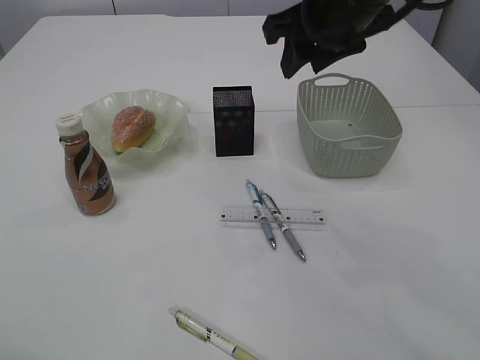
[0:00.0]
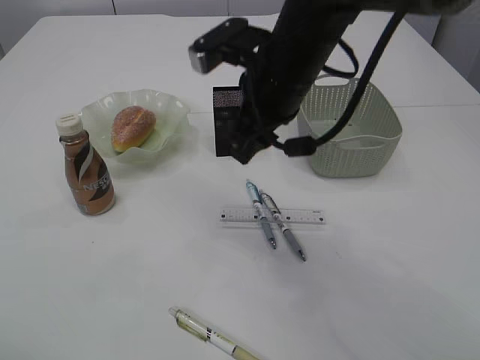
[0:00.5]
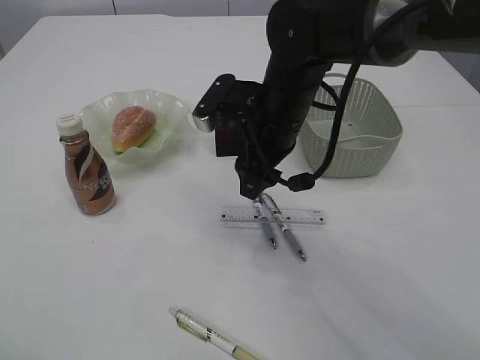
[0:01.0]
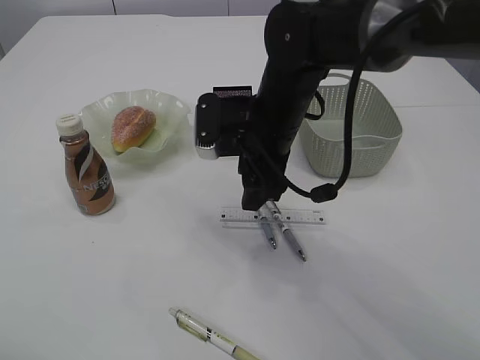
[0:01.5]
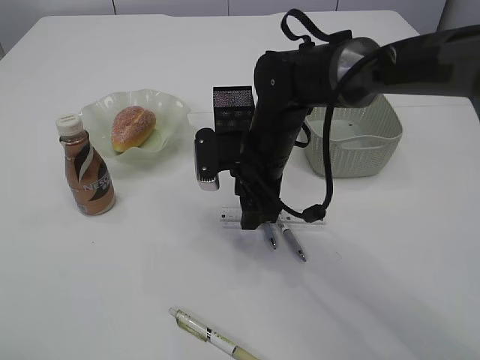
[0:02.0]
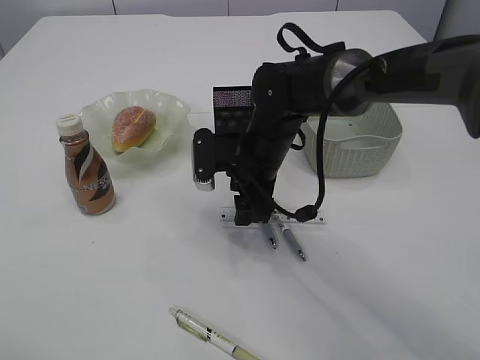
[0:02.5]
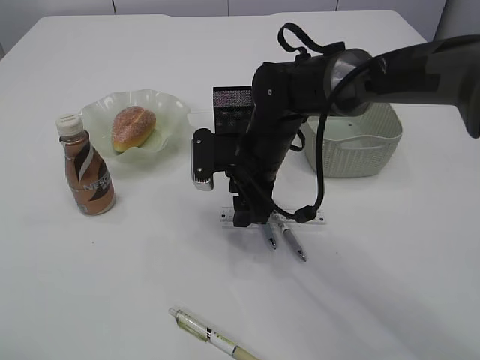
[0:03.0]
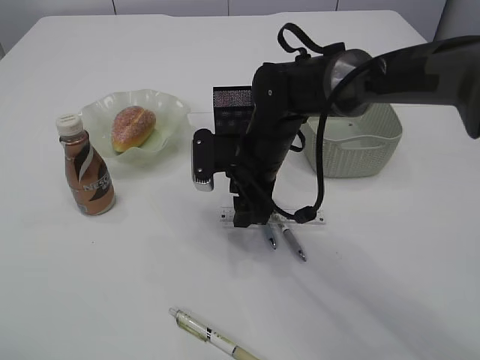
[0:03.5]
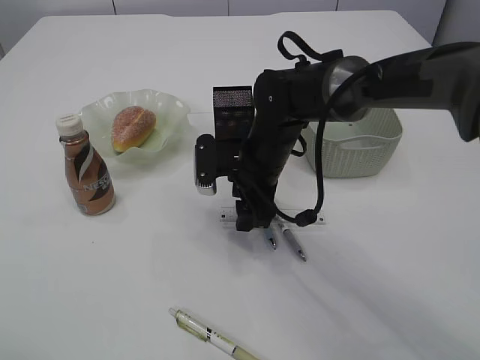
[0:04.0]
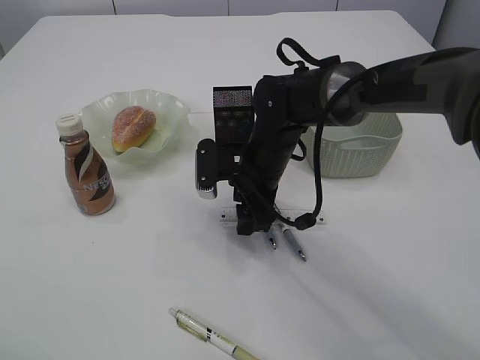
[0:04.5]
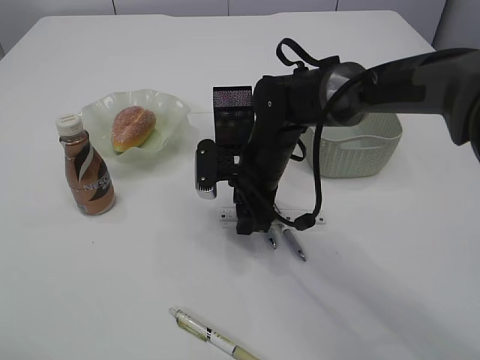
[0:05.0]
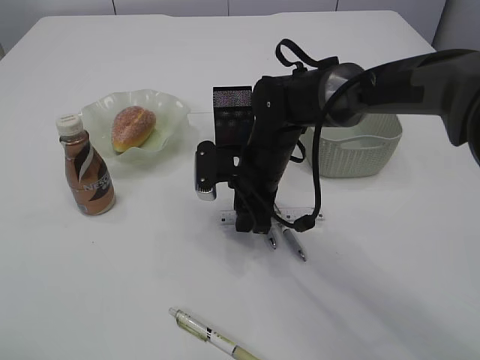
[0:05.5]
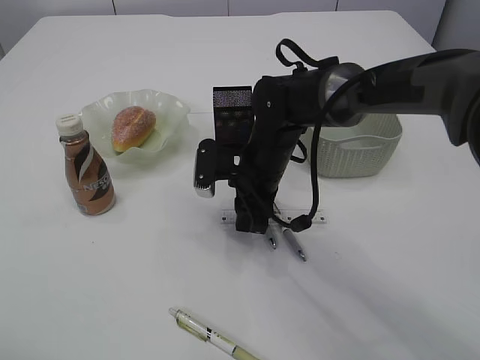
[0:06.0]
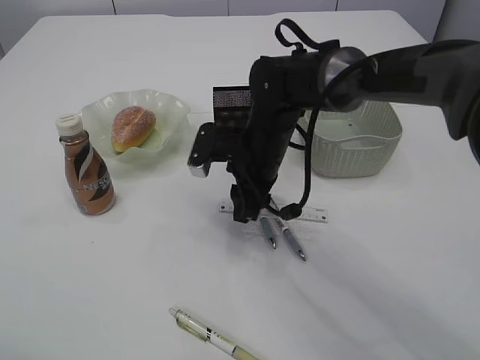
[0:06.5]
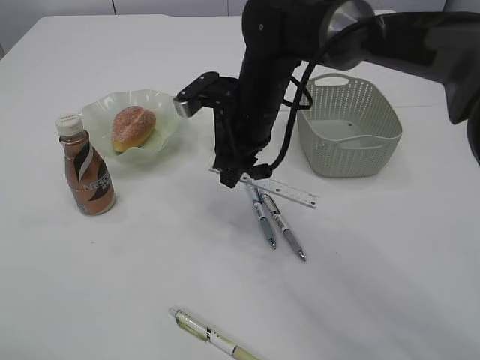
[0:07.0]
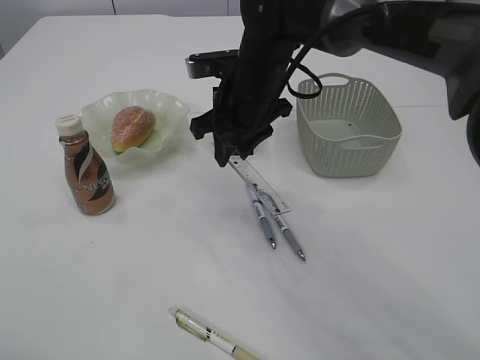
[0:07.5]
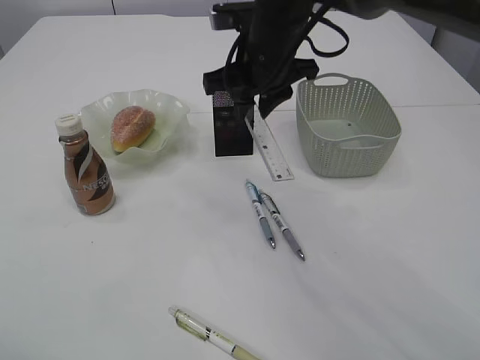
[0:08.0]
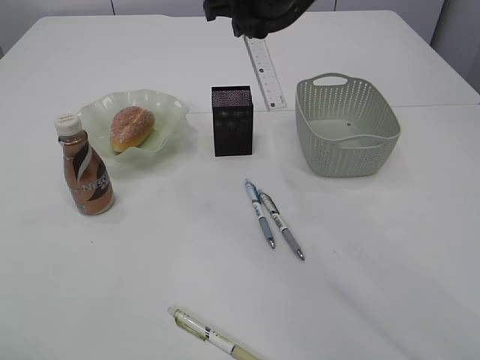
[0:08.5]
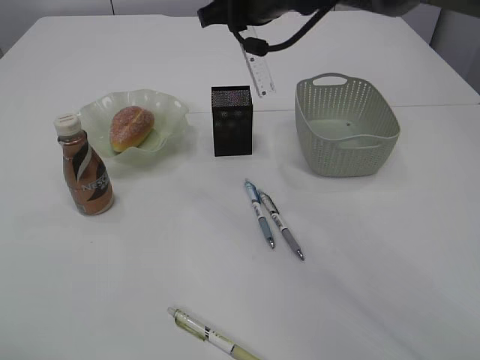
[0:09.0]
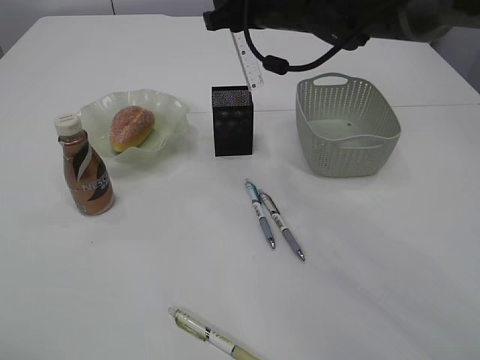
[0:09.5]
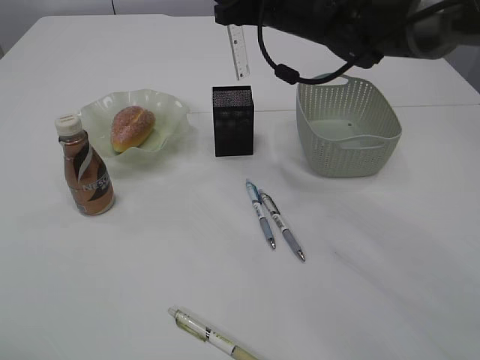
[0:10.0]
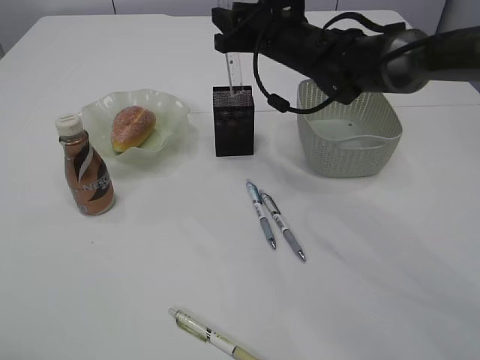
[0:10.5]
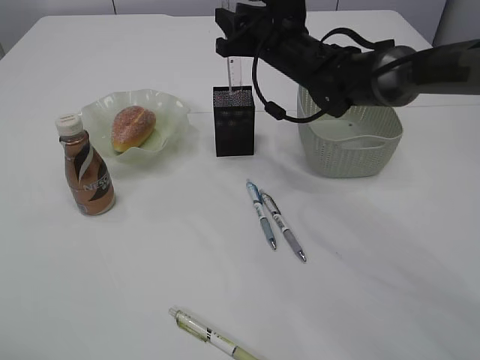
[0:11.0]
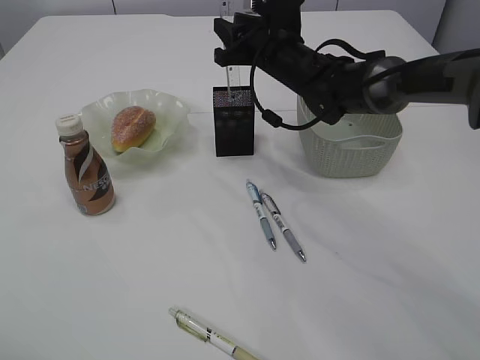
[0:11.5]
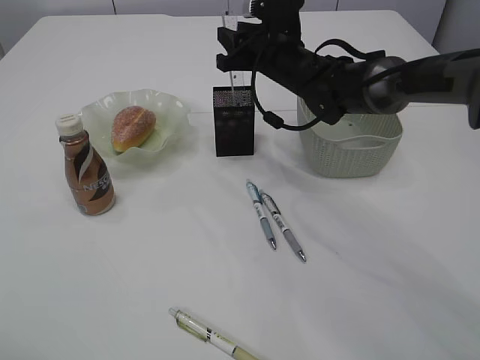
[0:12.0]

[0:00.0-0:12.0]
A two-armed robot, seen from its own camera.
Step, 0.0 to 6.5 s: pick up the ruler.
0.0 to 2.0 s: The right gripper is displaced downward by approximately 20 cm.
2.0 to 4.0 s: There are only small adjustments of the grippers.
4.0 to 6.0 s: The right gripper closes up.
6.0 to 8.0 s: The right gripper shifts some 15 cm upward.
8.0 to 10.0 s: The right gripper shifts roughly 5 cm forward.
10.0 to 12.0 s: The right gripper travels downward by approximately 10 cm.

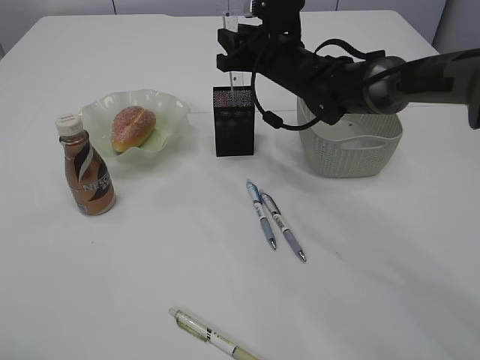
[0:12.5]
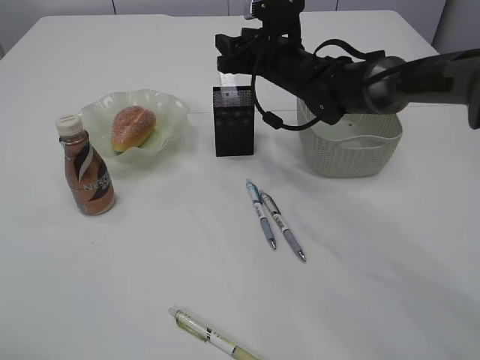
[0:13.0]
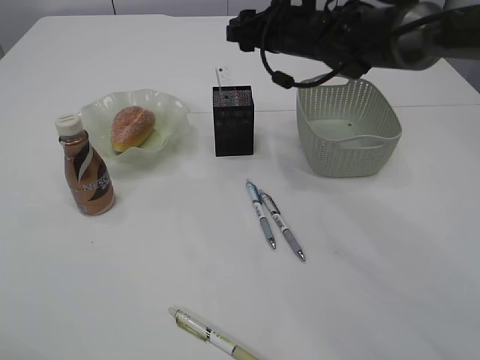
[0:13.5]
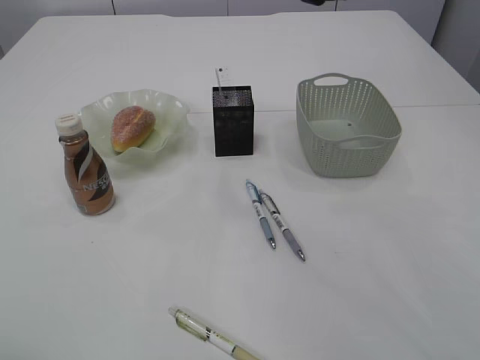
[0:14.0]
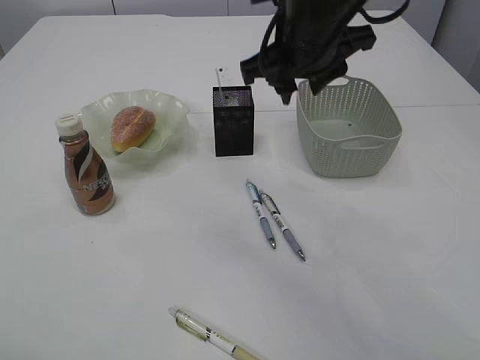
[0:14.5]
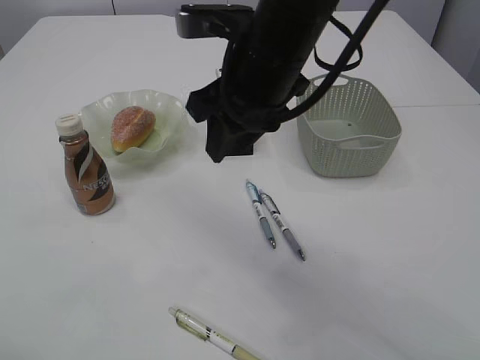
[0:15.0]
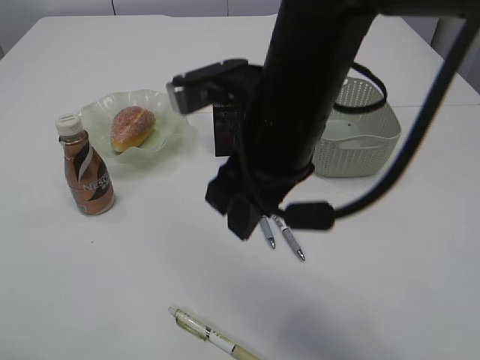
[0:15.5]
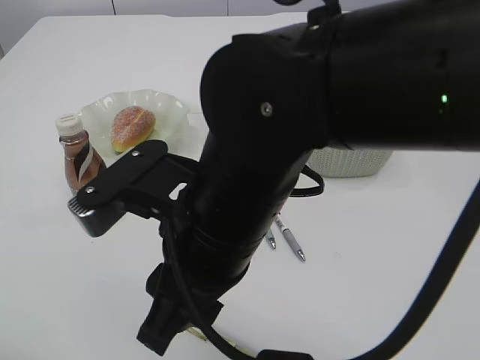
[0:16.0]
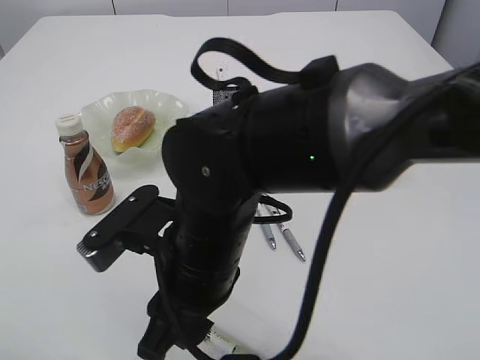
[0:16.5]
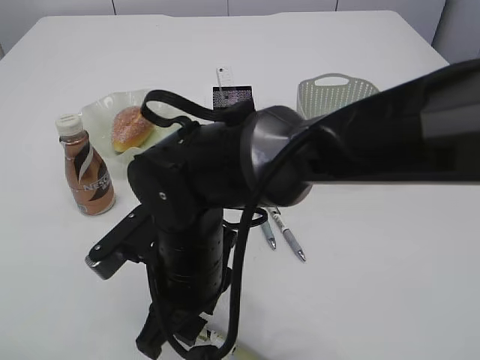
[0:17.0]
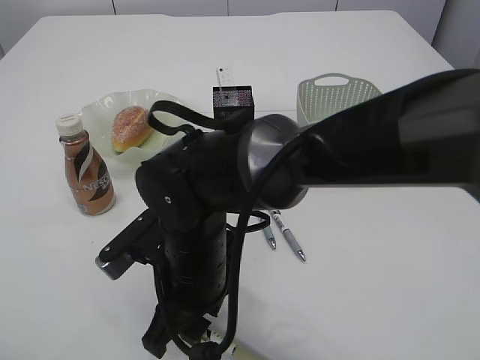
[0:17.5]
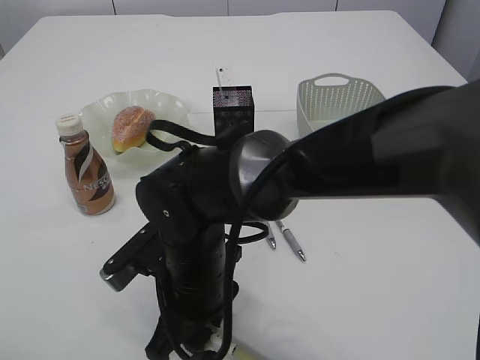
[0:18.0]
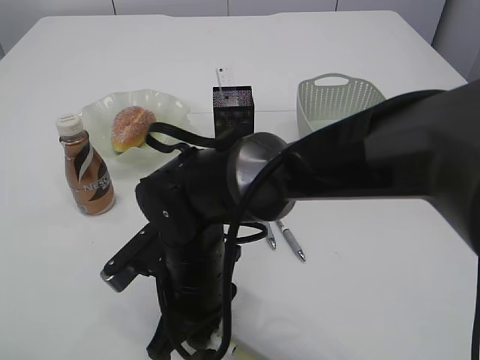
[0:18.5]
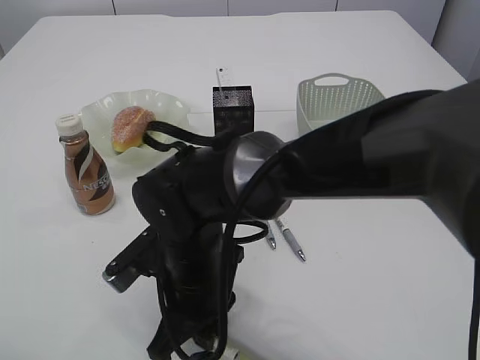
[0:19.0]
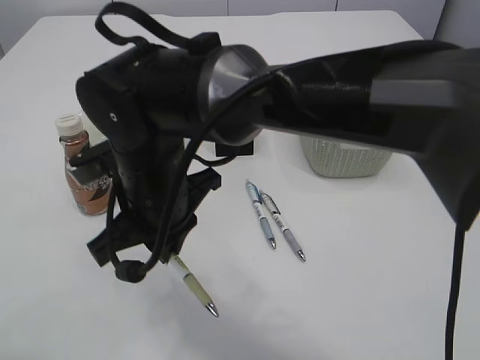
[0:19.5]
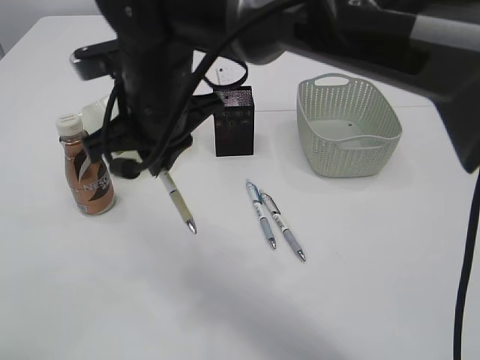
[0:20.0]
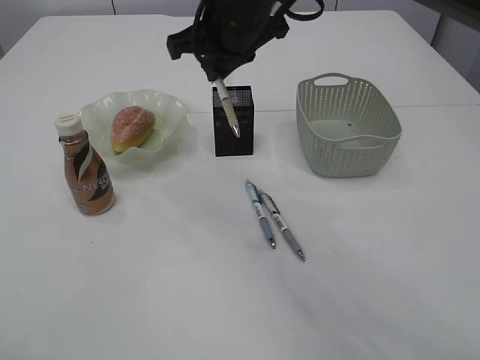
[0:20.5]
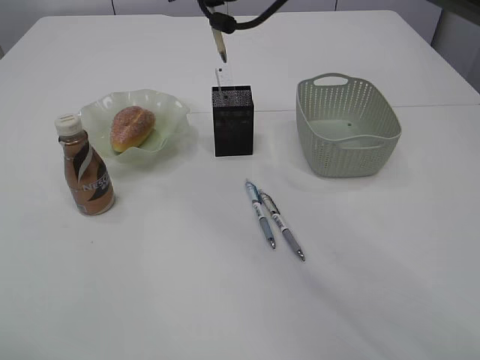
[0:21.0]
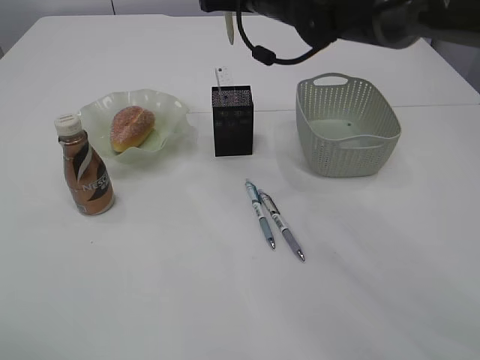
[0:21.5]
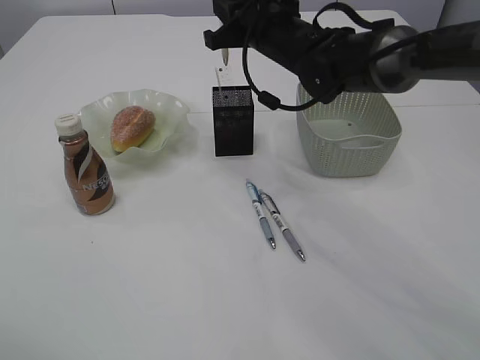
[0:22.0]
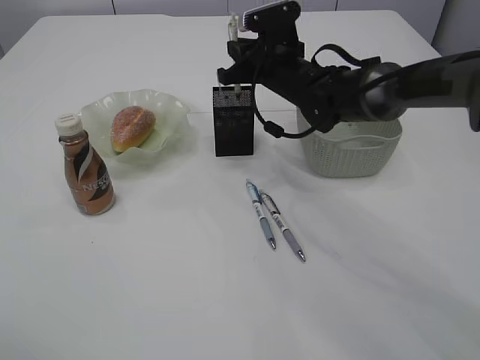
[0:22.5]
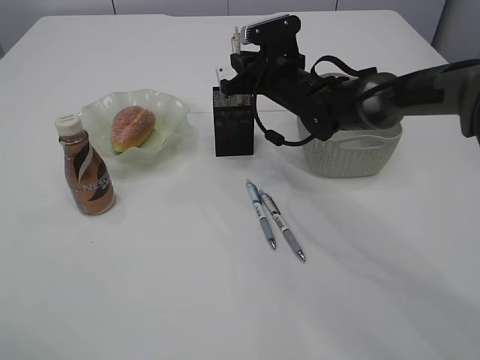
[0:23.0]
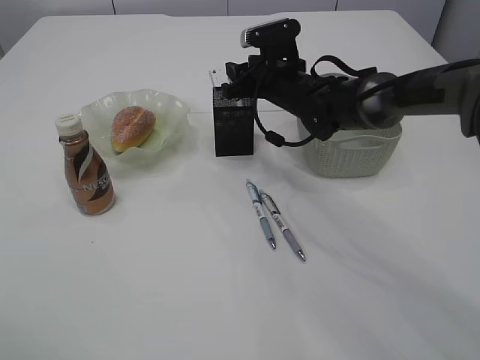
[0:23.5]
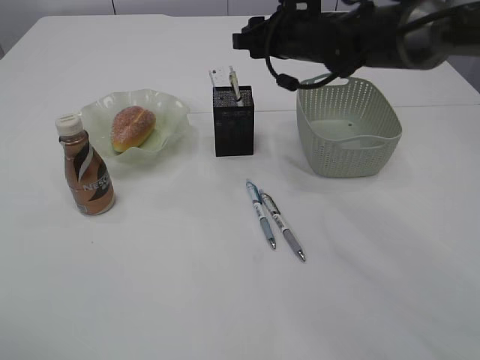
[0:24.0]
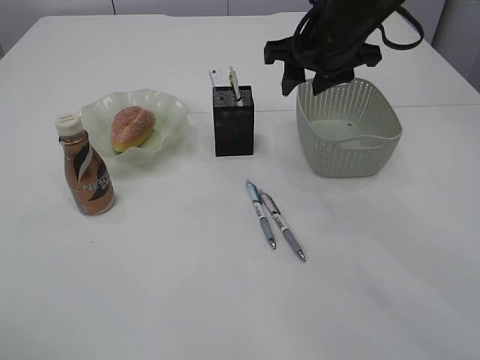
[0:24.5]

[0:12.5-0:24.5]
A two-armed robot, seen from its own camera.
Step, 14.0 to 19.5 s: Pick up the pen with right arm.
Step, 20.0 to 23.5 s: Place the pen into the pen holder.
12.5 to 14.5 s: The right gripper travels backward and upward by approximately 15 cm.
14.5 to 16.5 s: The right gripper shifts approximately 25 cm backward, downward and to the left.
16.5 to 18.5 s: The right gripper heads downward, covering some 10 cm.
18.5 to 20.5 s: The right gripper goes some 25 cm upward and forward, and closes its fingers.
20.5 to 22.5 s: The right gripper moves downward, forward and to the right, roughly 15 cm.
22.5 to 24.5 s: The right gripper travels upward and backward by some 10 cm, and opens.

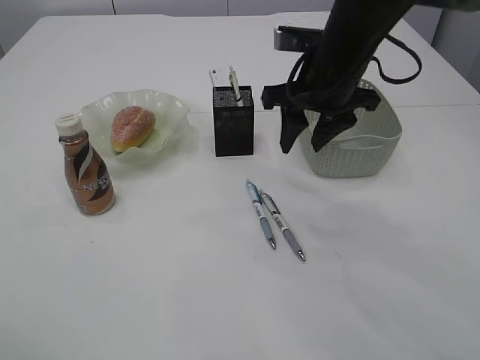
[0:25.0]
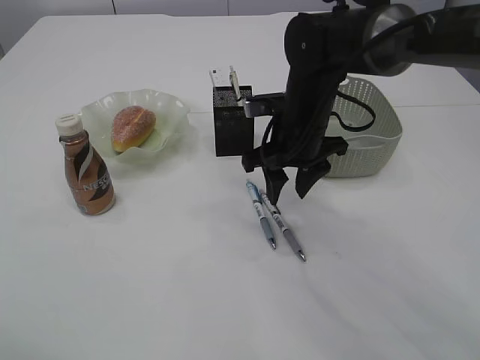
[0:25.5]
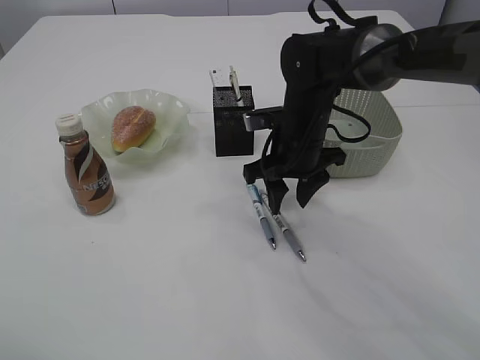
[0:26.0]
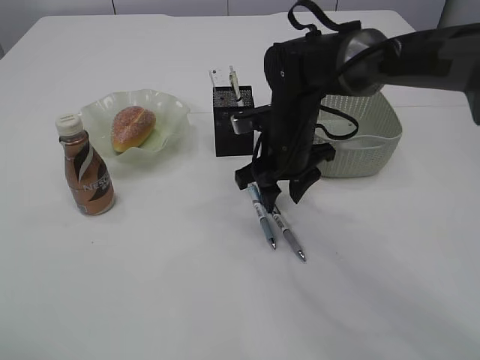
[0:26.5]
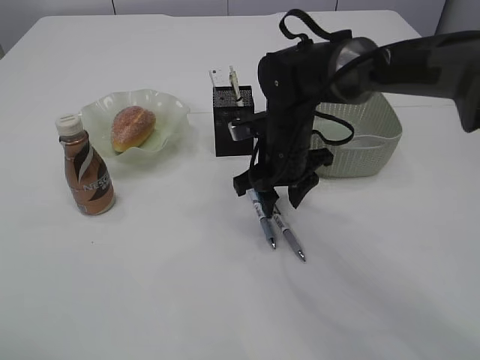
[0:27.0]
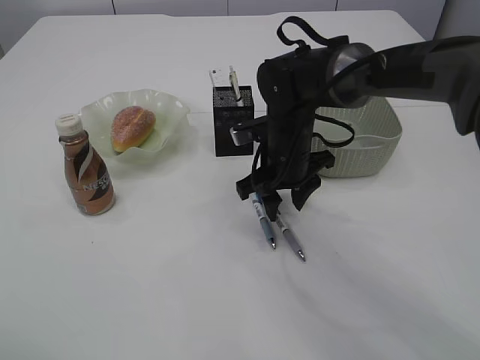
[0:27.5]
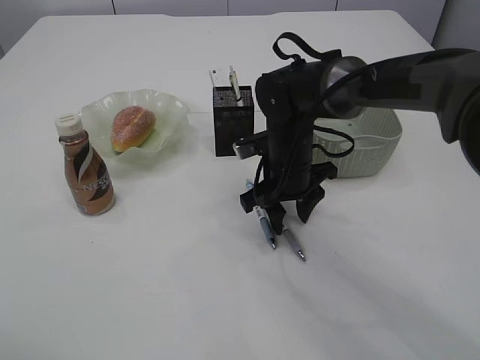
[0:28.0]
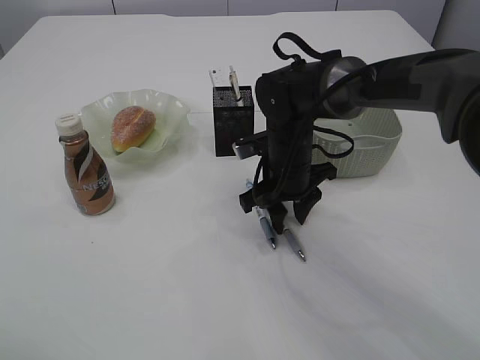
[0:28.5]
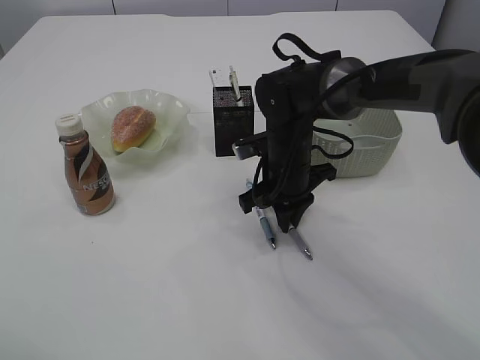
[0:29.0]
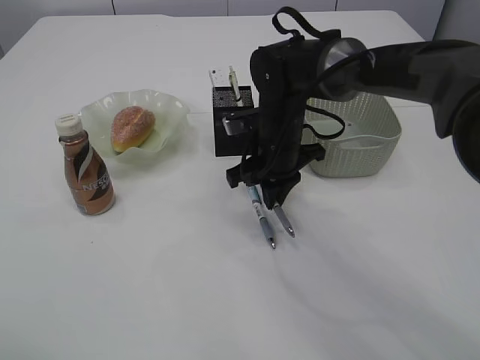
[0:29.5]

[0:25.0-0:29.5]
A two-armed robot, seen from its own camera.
25.0 to 27.0 s: The right gripper travels downward by roughly 10 cm.
27.0 to 29.5 s: The right gripper closes.
